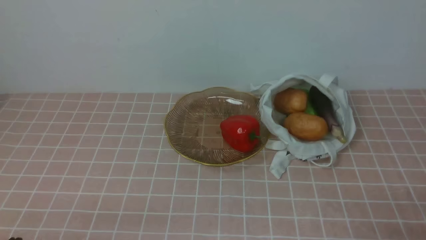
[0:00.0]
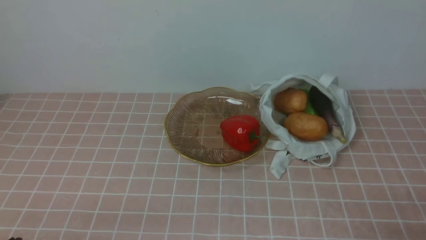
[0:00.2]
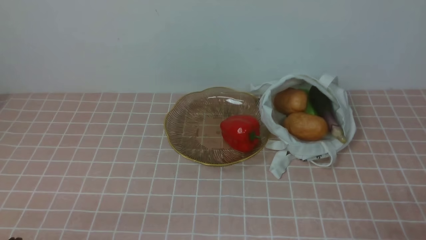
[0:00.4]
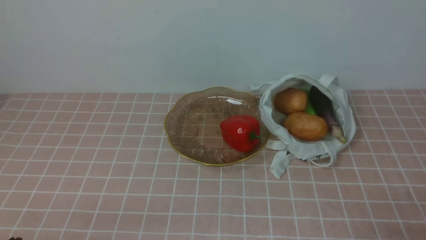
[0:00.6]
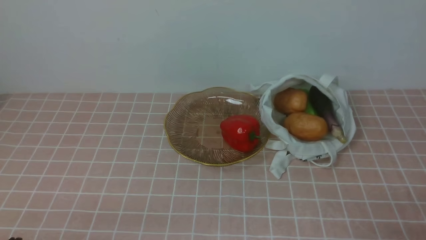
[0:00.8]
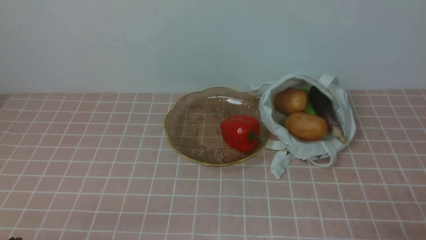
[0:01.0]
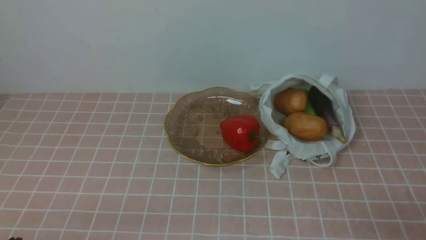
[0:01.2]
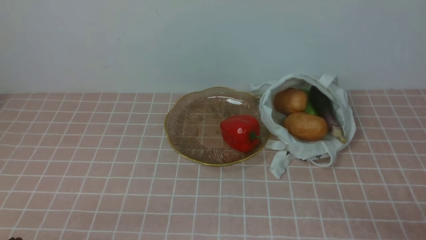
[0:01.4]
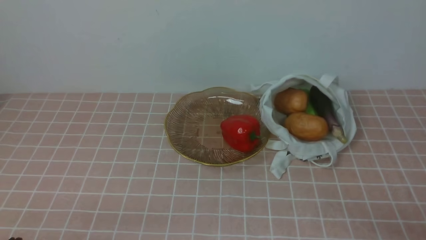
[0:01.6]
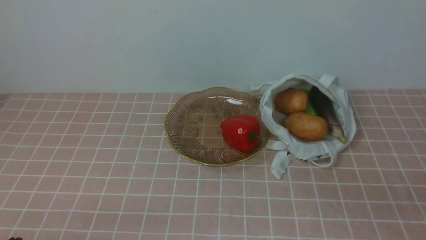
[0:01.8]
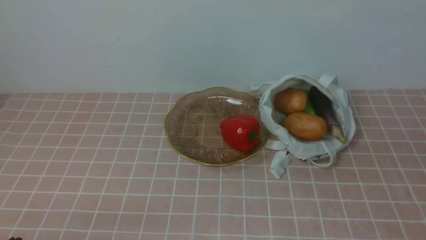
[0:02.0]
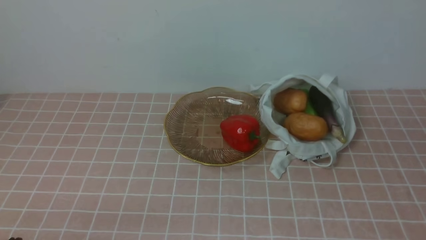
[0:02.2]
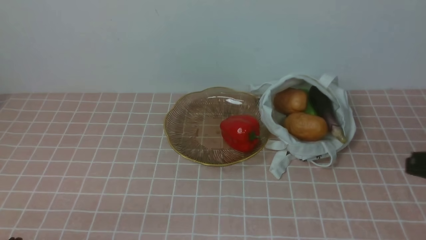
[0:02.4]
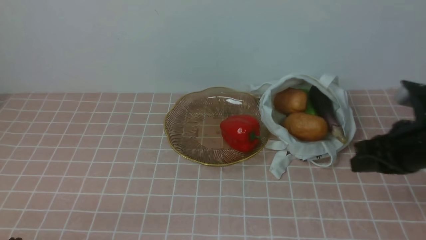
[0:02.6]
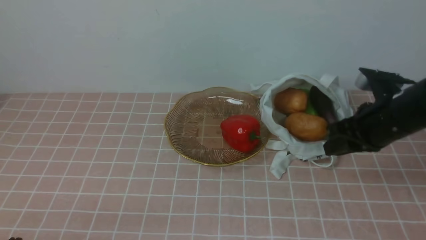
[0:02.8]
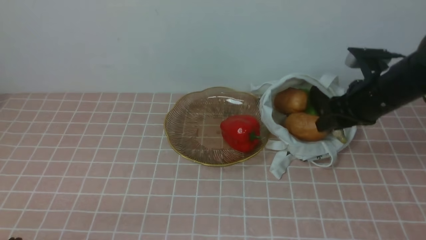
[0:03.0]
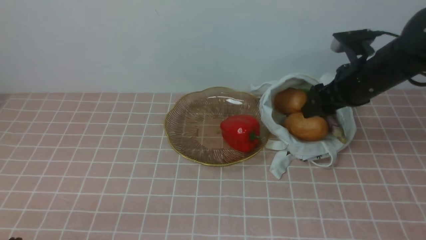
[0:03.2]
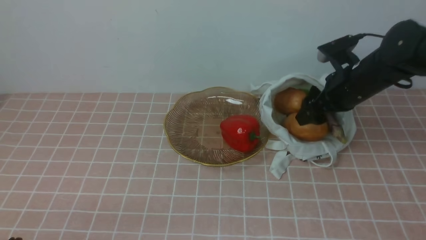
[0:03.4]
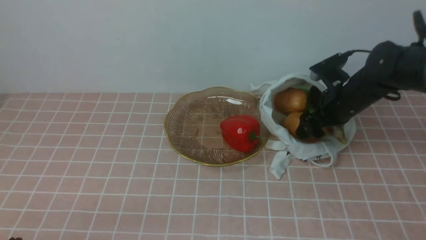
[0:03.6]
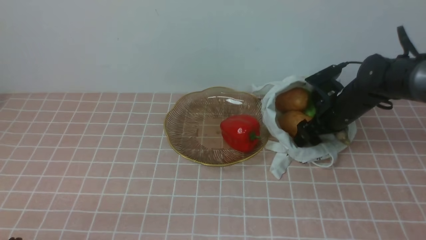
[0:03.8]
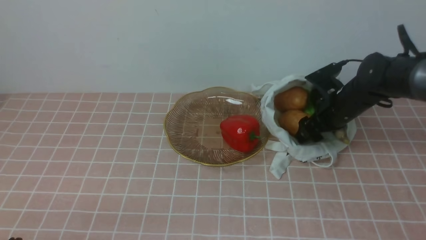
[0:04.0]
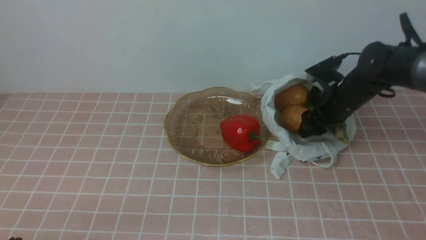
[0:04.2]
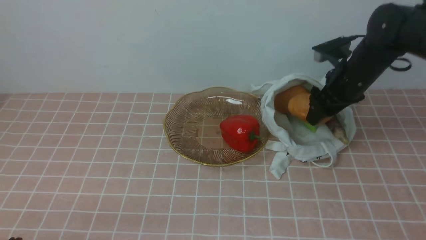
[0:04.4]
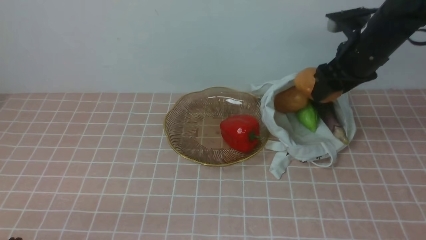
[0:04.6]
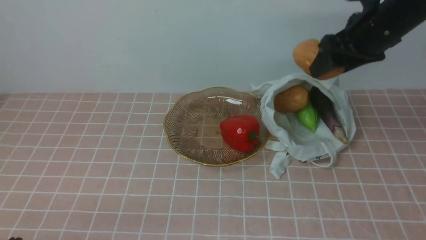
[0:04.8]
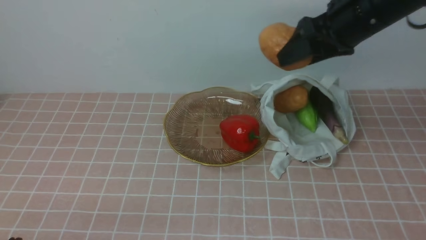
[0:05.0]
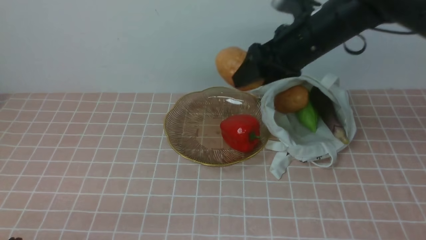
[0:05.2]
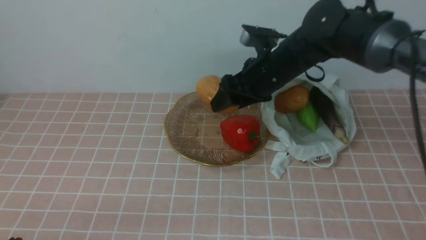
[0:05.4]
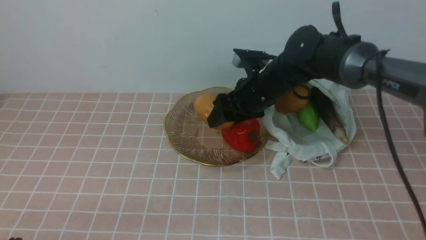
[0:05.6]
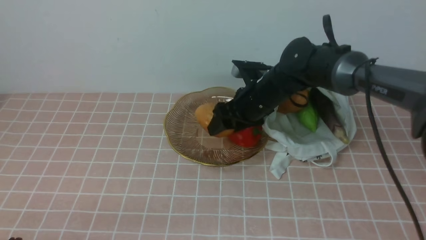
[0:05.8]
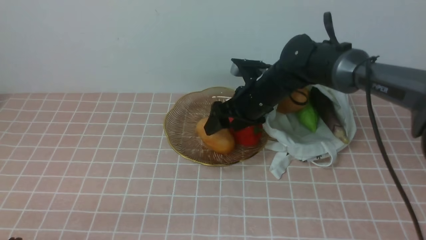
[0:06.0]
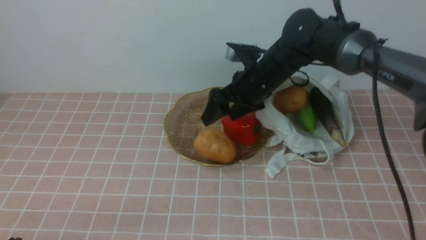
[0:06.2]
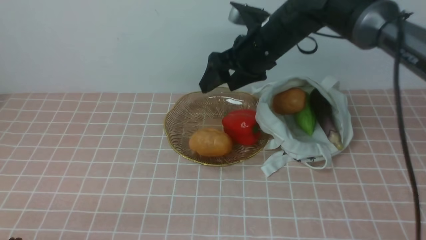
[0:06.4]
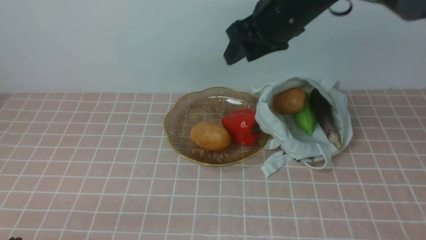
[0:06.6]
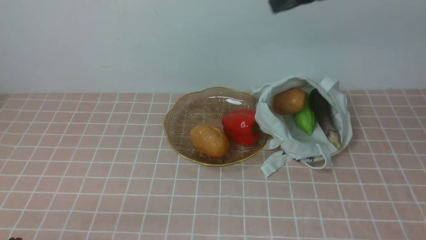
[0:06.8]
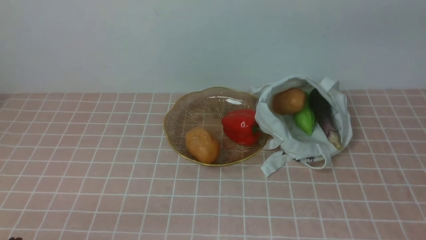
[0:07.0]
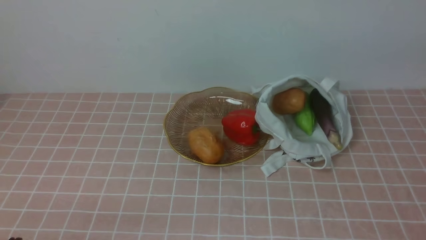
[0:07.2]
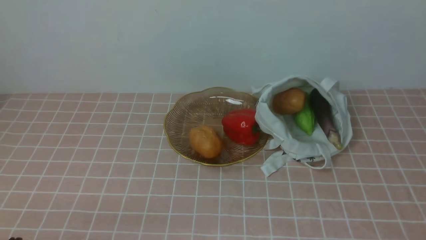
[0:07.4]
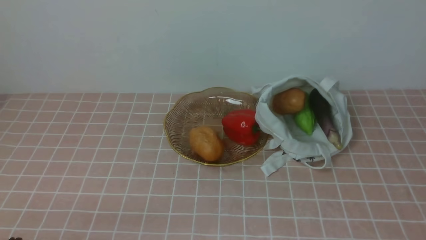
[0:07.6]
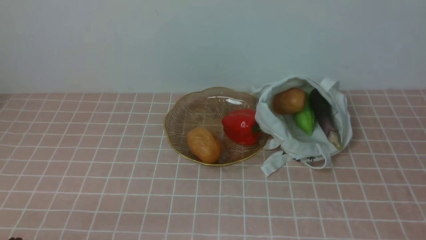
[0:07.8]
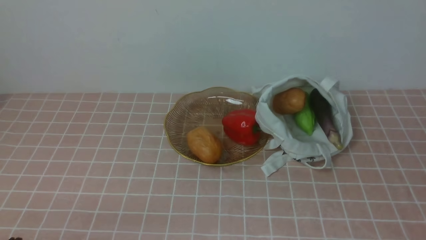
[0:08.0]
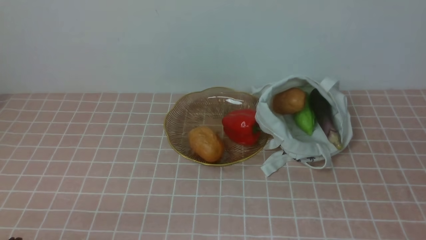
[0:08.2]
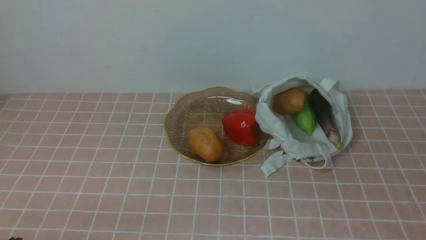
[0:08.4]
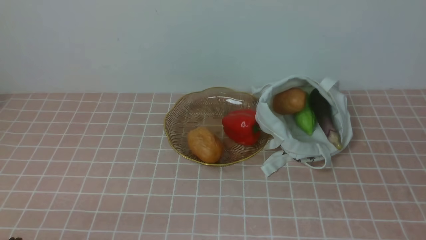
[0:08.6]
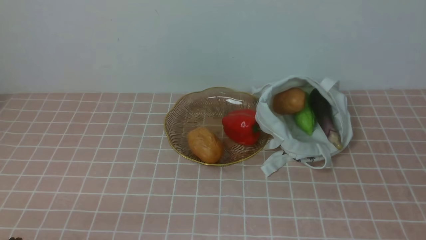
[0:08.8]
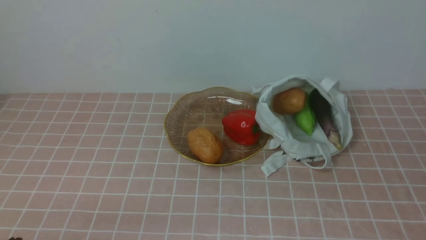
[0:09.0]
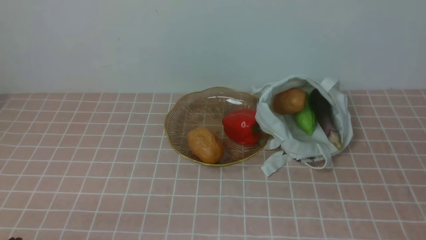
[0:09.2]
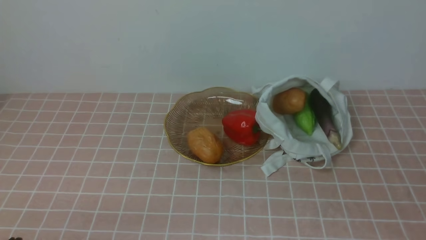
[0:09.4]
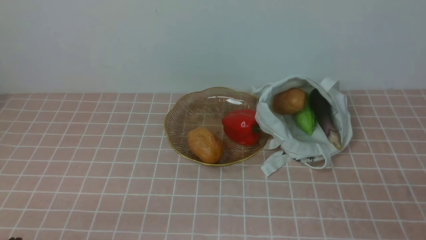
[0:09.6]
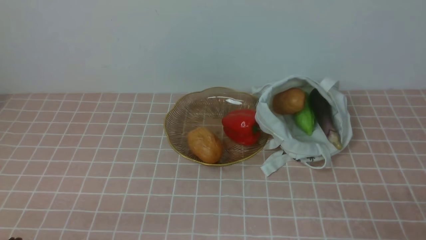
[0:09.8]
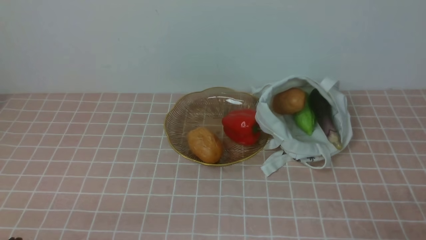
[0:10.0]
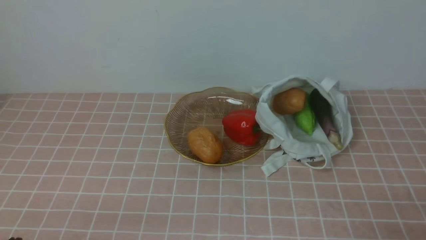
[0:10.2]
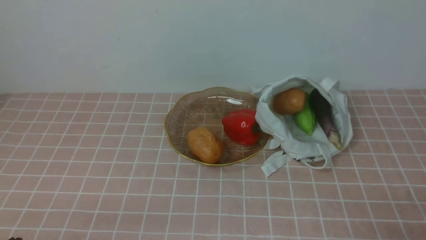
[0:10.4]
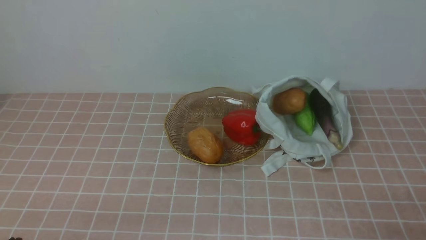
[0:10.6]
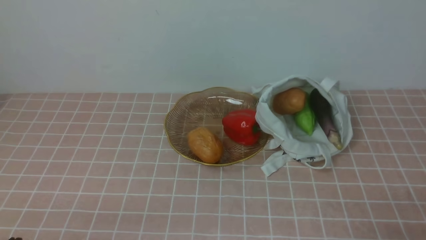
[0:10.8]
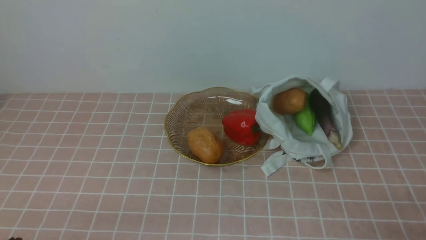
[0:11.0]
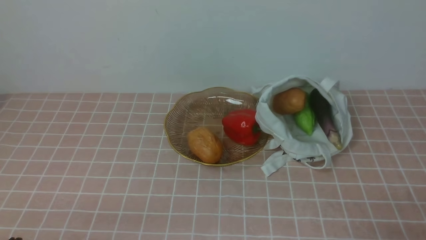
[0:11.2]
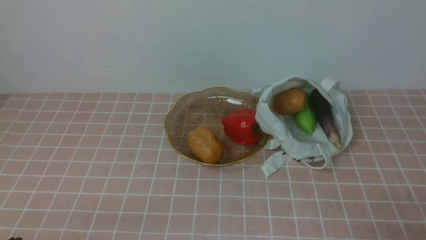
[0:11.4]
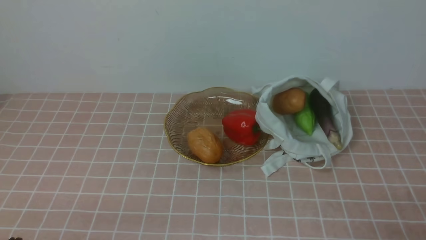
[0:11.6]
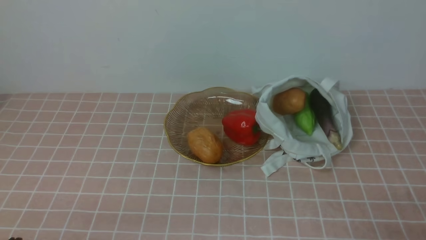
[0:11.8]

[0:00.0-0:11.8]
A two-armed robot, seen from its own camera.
Task of the whole recording: take vegetables from bag on pink coffee tablecloth place on plate.
Step, 0:00.0 to 0:03.8: Grasp the potato with right gripper.
Step, 0:04.2 to 0:06.2: Place the potato on the plate with right gripper.
0:01.4 to 0:03.0: The right gripper shifts about 30 cm forward, and opens its fingers.
0:03.0 to 0:04.4: The right gripper goes some 10 cm forward.
0:04.4 to 0:06.0: The right gripper goes approximately 15 cm to the left.
0:06.0 to 0:07.4: The right gripper moves upward, backward and to the right, about 50 cm, and closes up.
0:10.4 to 0:11.8: Both grippers stay put.
